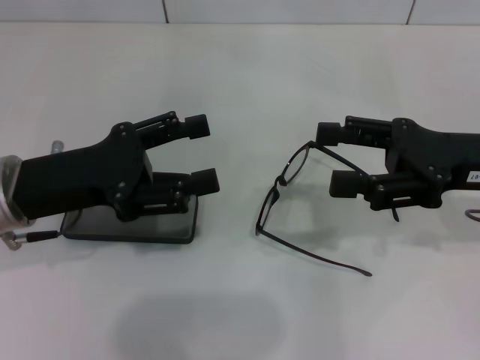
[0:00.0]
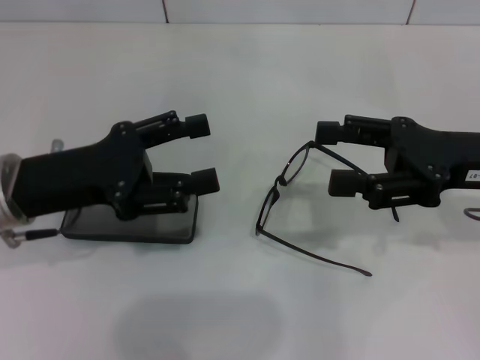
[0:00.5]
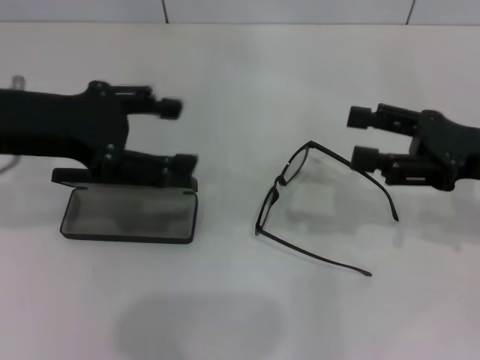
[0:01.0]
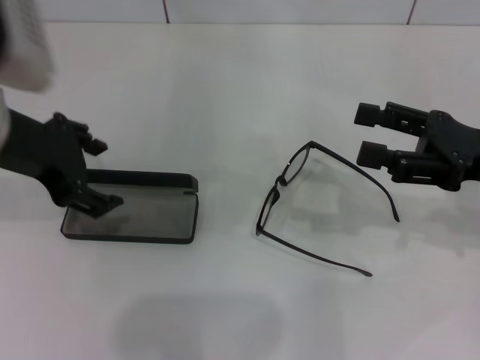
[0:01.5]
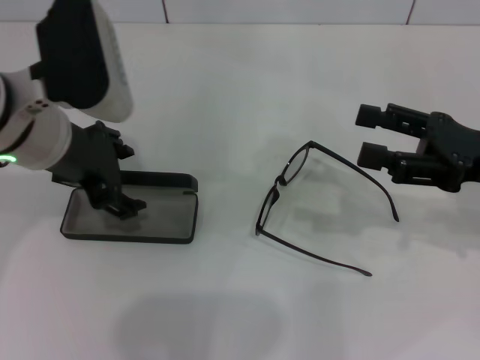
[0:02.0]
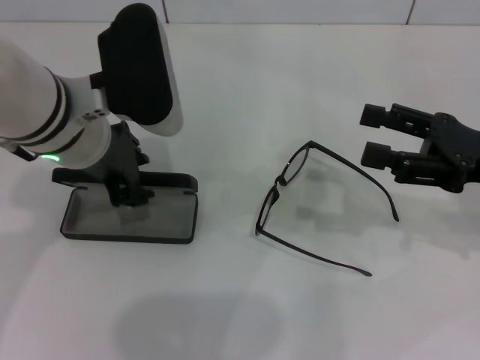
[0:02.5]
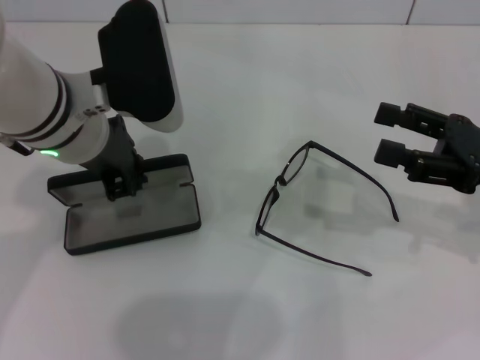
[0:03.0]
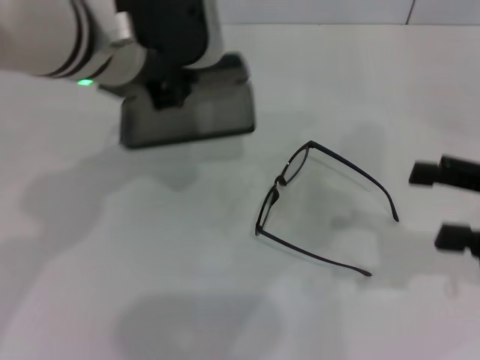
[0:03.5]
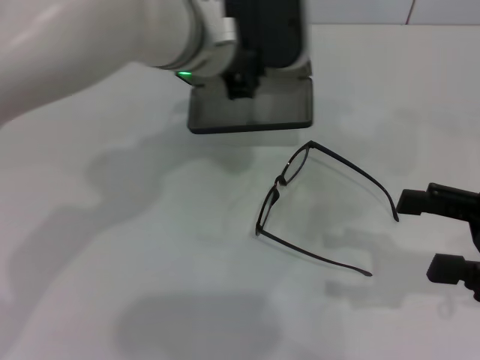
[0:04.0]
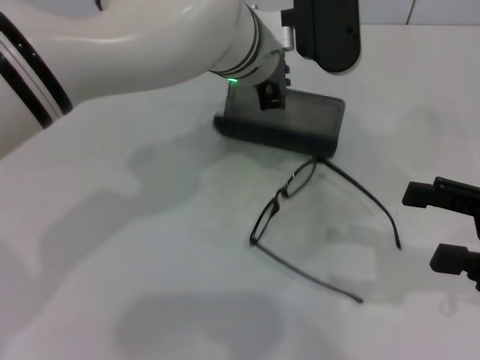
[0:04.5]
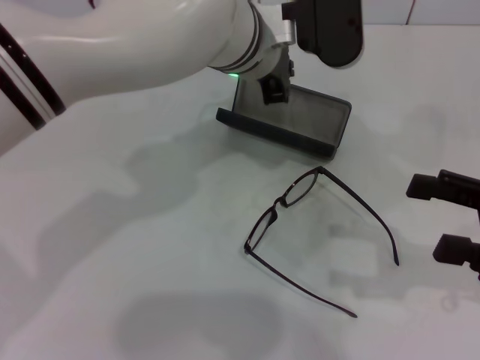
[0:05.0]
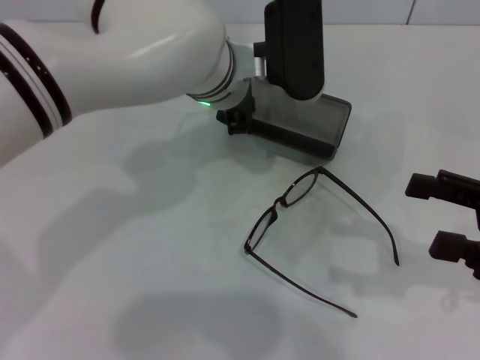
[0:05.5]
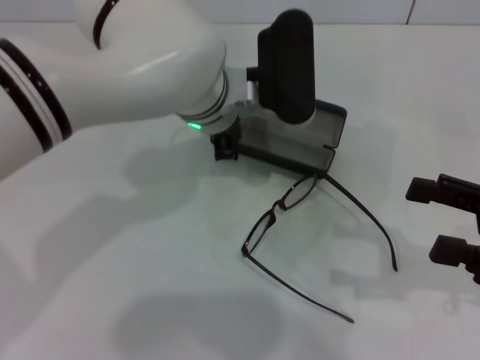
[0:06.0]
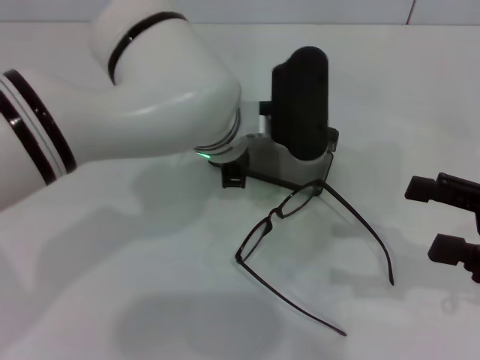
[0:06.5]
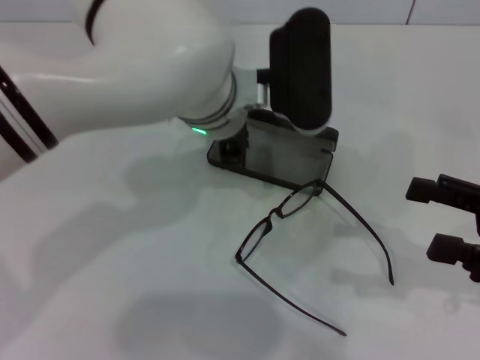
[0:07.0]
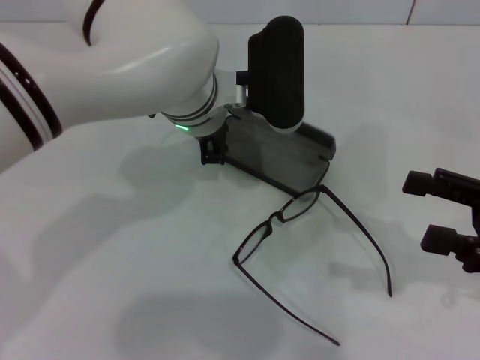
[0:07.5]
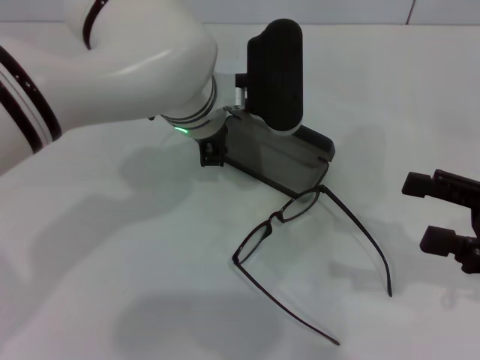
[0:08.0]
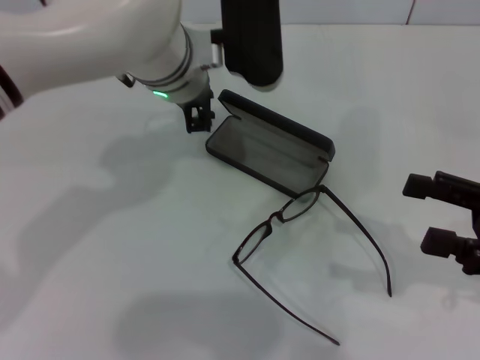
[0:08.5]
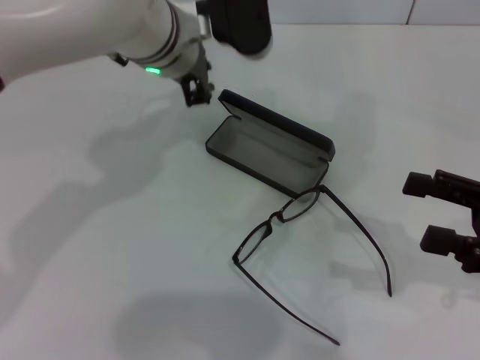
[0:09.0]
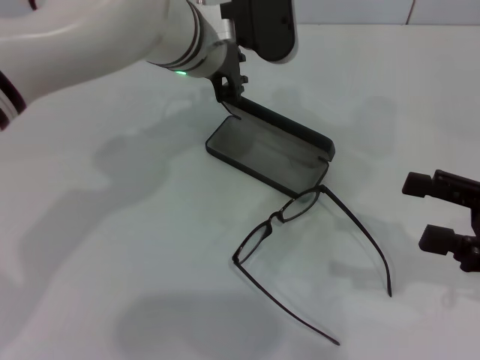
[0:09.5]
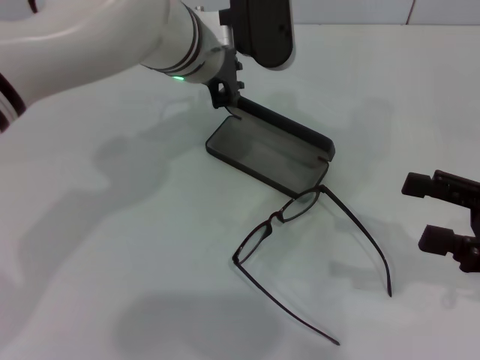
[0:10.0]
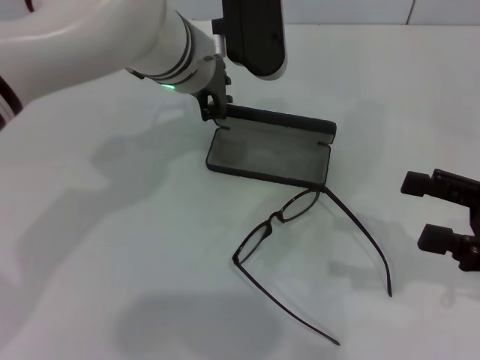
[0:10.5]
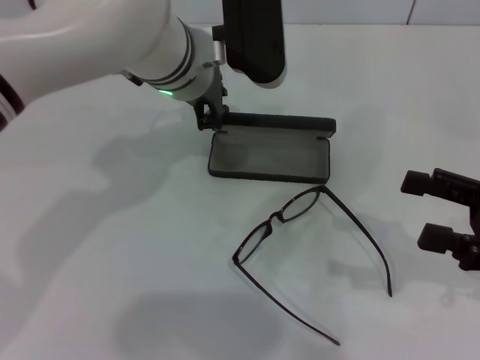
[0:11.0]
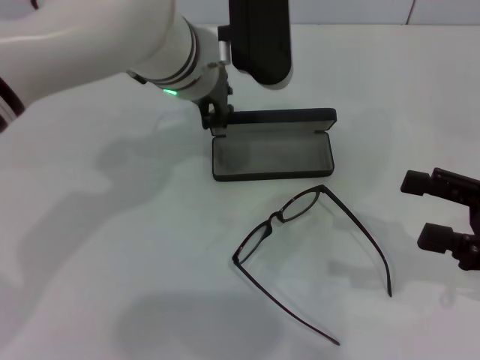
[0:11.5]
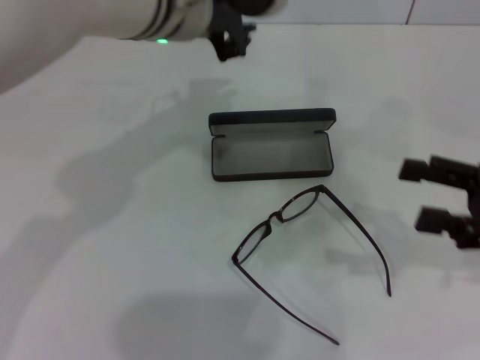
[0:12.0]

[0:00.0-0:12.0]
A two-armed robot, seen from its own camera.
Step, 0.0 to 2.5 s: Grab the glasses case with your left hand.
Step, 3.5 to 6.0 s: Place the glasses case in the center of the table with your left hand.
0.0 to 2.0 s: The left gripper is displaced upward and to the right by approximately 10 cm.
2.0 to 4.0 s: The right gripper heads backward, covering about 5 cm; the left gripper goes about 15 cm to the right and forward, and closes.
4.0 to 6.0 s: The left gripper travels downward by some 5 cm.
6.0 to 8.0 s: The grippers stay close to where they were, moving slightly.
10.0 to 12.0 s: The left gripper shifts roughly 5 cm upward.

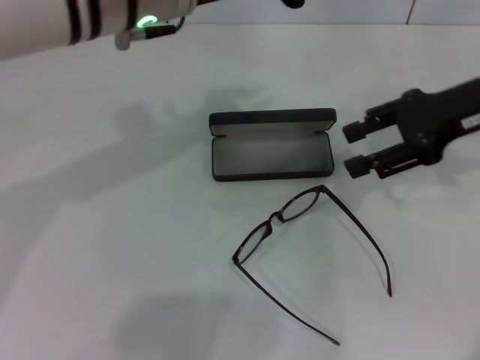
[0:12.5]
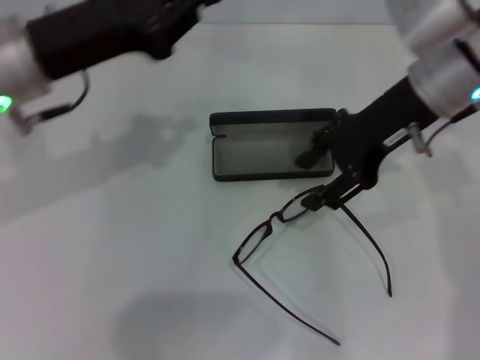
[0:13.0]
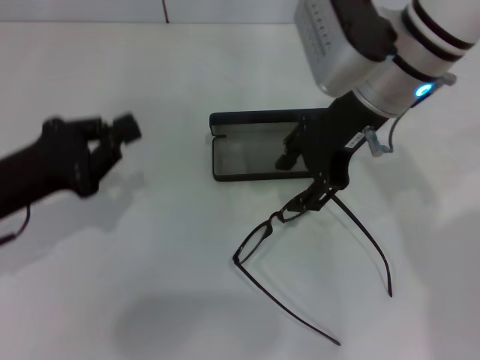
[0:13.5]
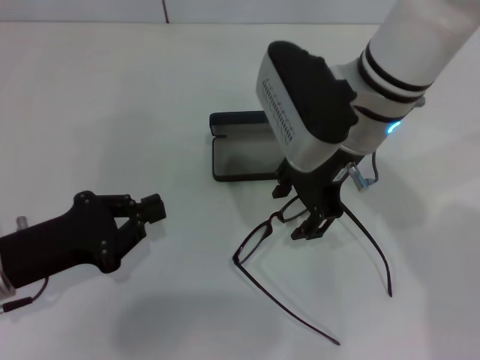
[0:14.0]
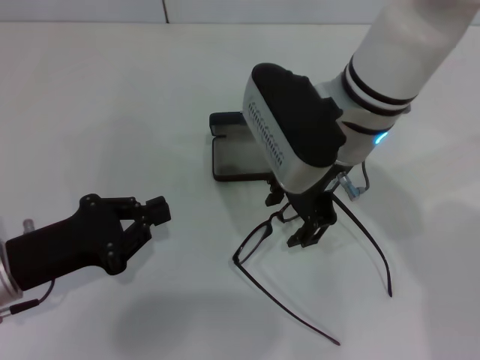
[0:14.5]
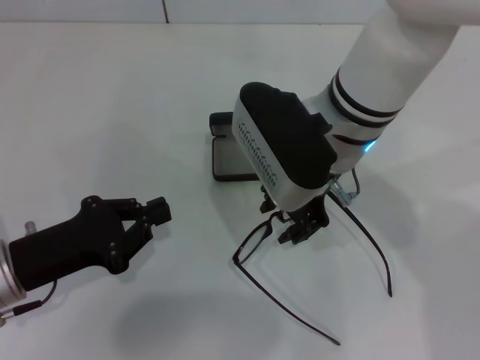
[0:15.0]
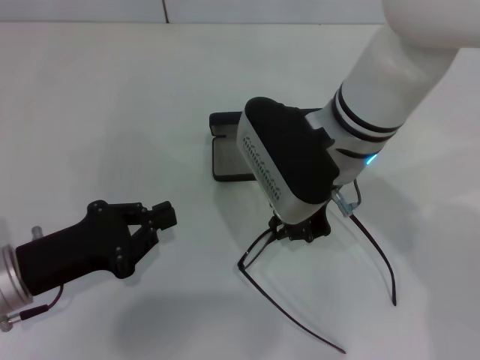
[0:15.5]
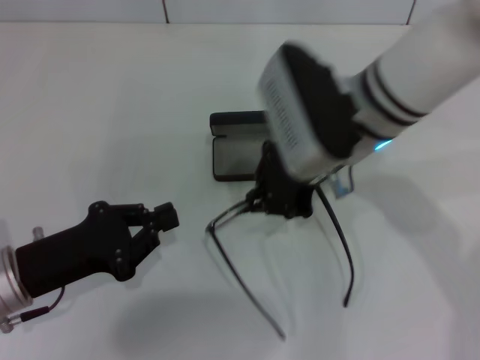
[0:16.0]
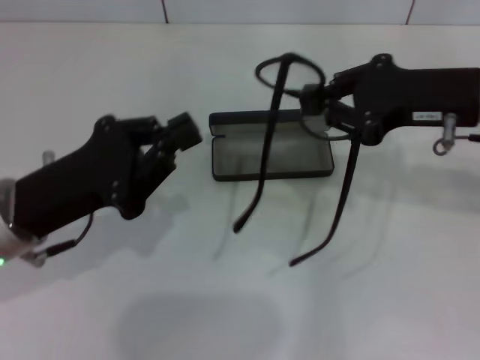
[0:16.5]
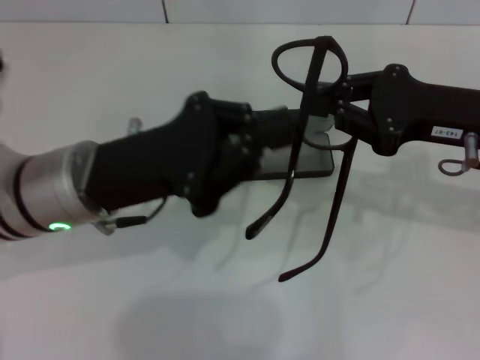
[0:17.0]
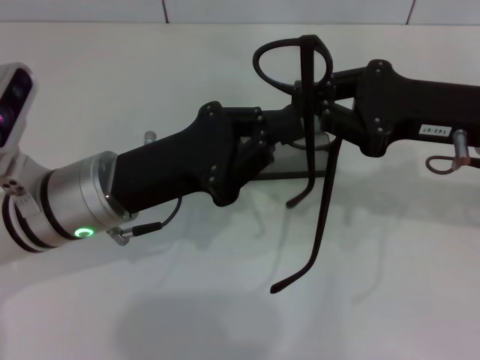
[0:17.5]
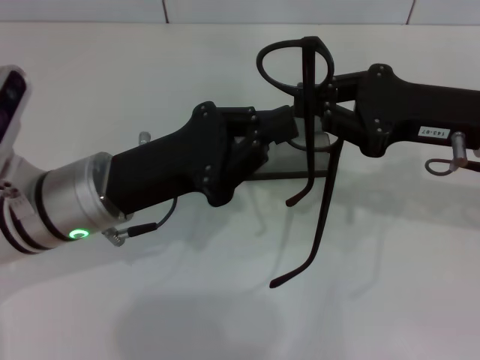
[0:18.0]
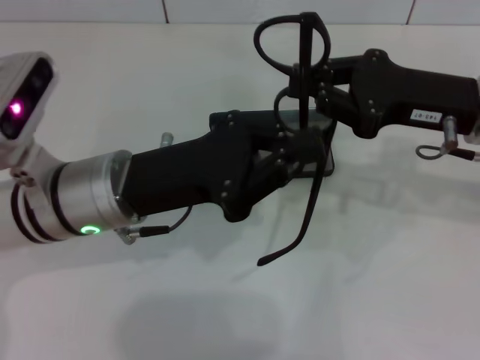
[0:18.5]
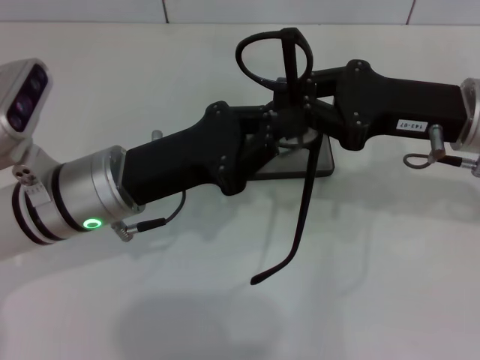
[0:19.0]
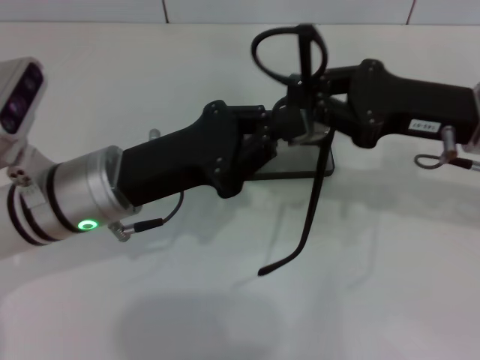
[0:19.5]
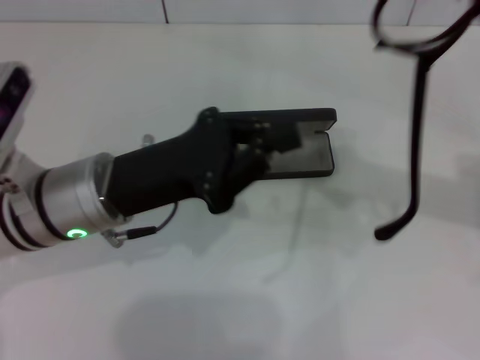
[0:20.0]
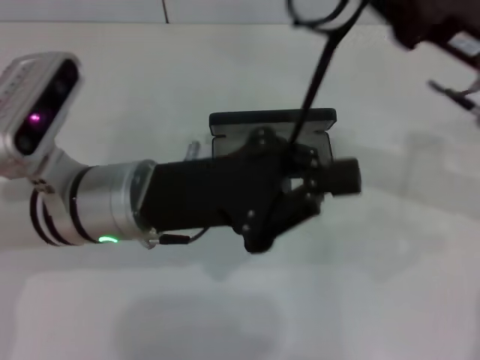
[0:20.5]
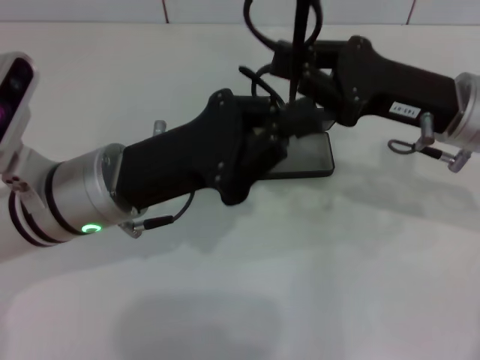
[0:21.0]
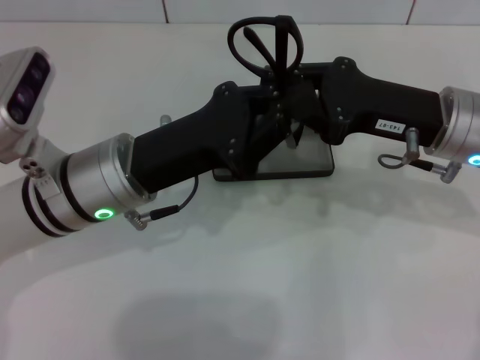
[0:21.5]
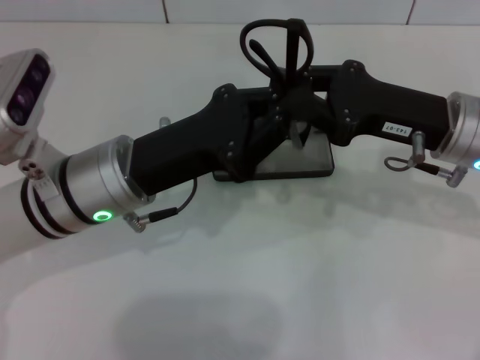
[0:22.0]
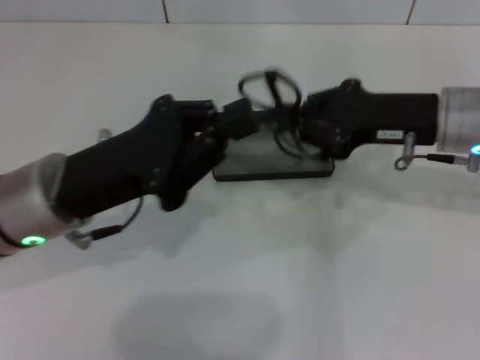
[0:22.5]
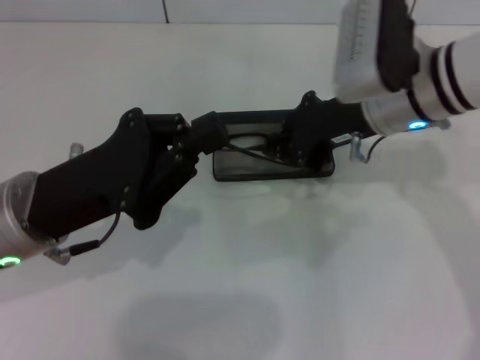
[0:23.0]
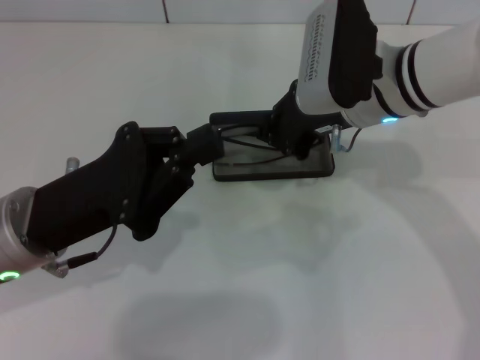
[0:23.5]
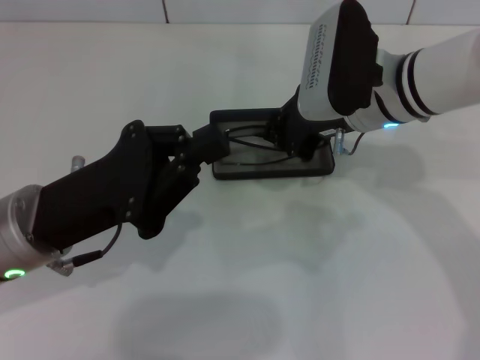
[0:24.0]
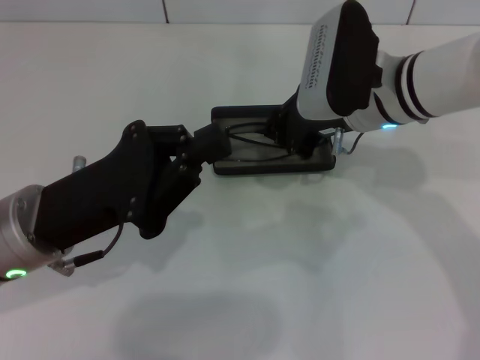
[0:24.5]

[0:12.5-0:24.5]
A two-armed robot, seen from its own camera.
Step, 12.5 to 15.0 s: Grab the eyeglass frame with your right hand.
Step, 16.0 to 21.5 s: Fold the frame with your left hand.
12.5 to 14.5 s: The left gripper heads downward, to the left and backward, covering roughly 30 cm. Meanwhile the right gripper heads to the left, covering about 20 cm.
14.5 to 16.5 s: The left gripper shifts by approximately 5 cm, while the right gripper travels to the right by roughly 15 cm, and closes up.
16.5 to 18.5 s: The left gripper shifts about 10 cm to the right.
20.5 to 22.5 s: The left gripper goes about 5 cm to the left.
22.5 to 24.5 s: The right gripper moves to the left, about 10 cm.

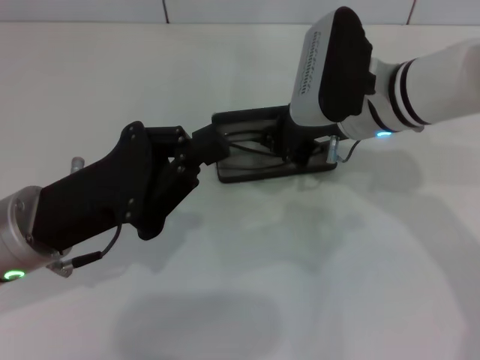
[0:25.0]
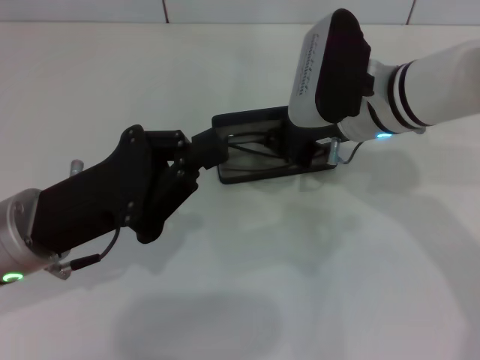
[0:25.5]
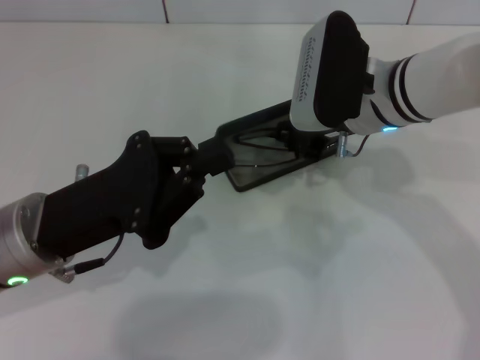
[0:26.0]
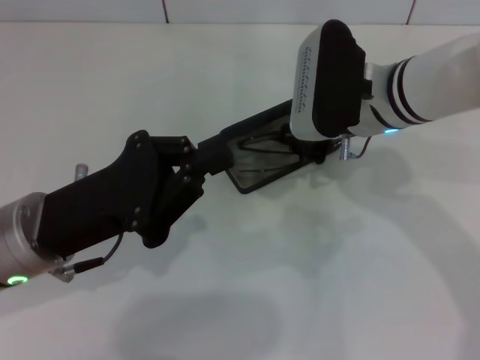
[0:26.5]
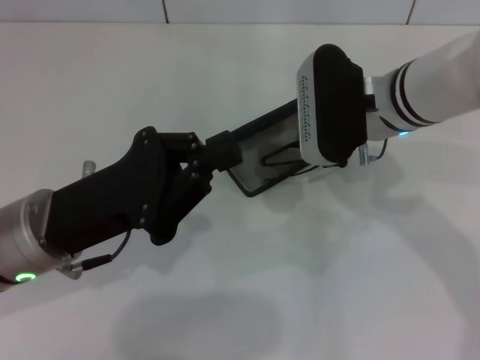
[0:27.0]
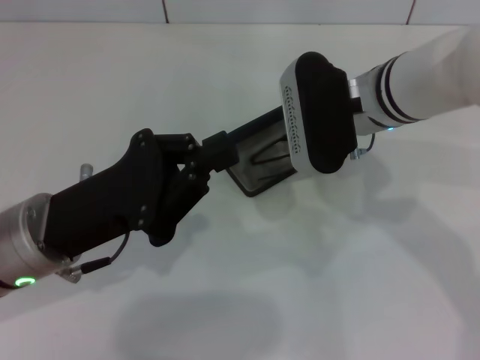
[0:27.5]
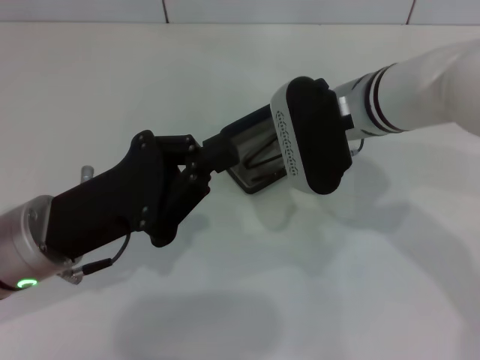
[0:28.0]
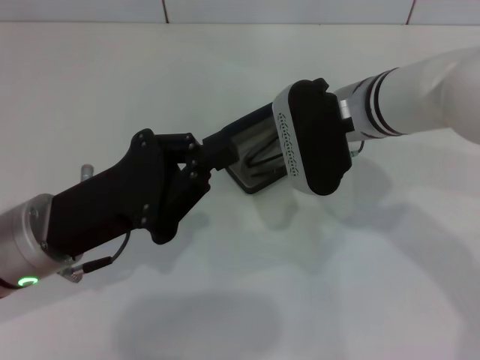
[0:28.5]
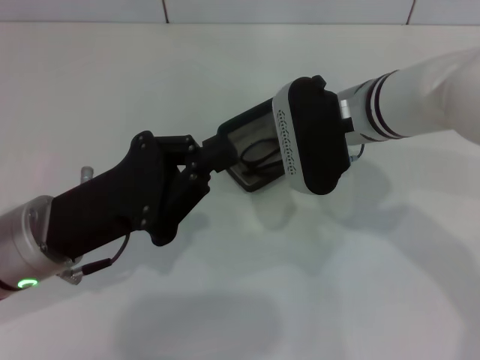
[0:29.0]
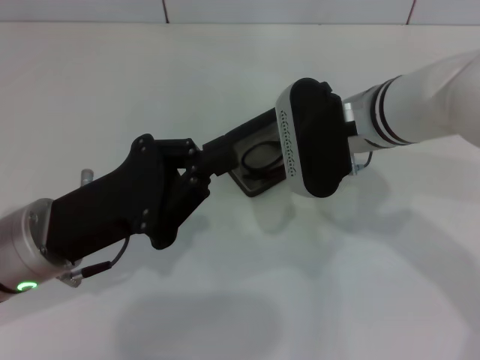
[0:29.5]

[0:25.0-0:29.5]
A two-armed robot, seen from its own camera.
27.0 to 29.5 s: There are only small adjustments of the grippers.
